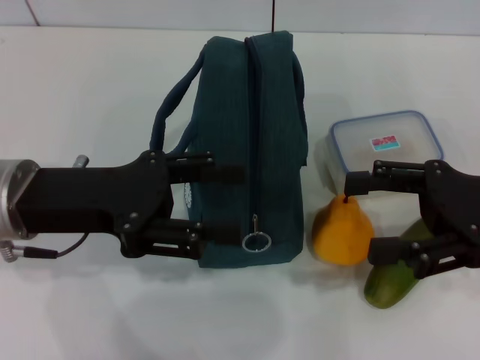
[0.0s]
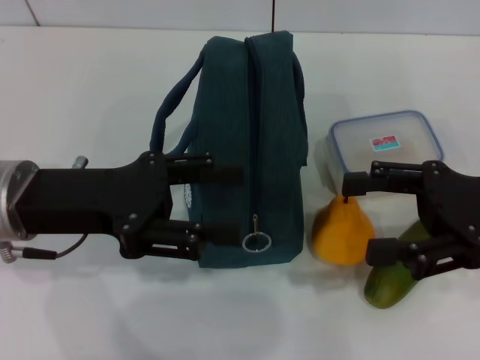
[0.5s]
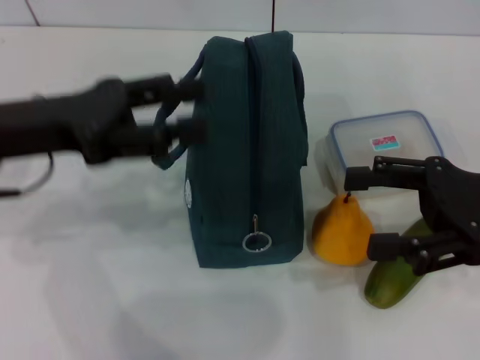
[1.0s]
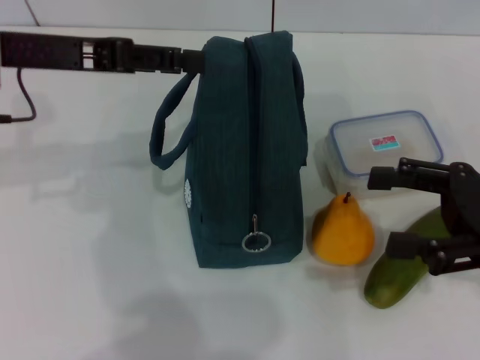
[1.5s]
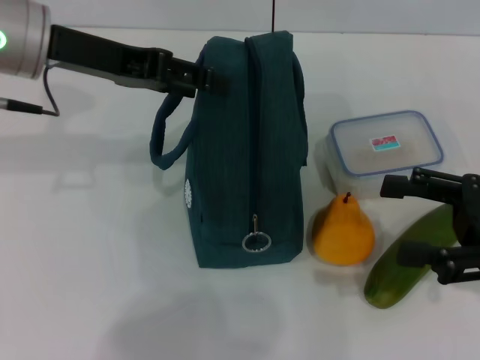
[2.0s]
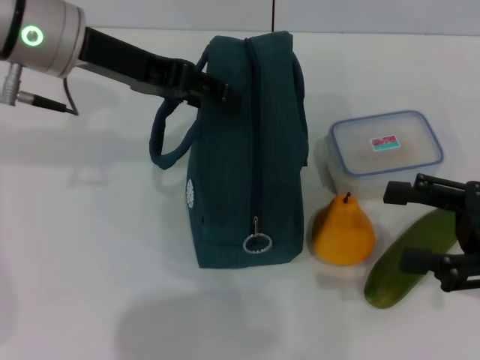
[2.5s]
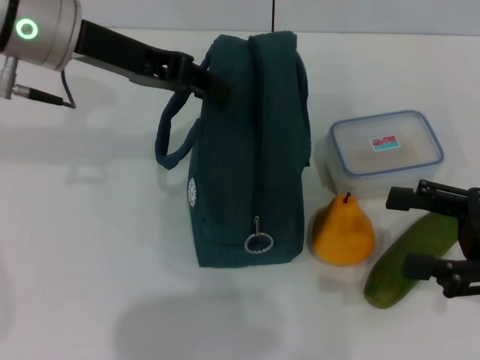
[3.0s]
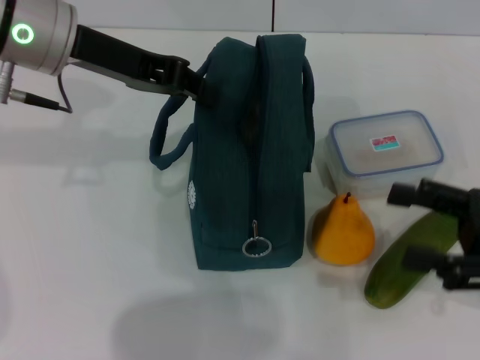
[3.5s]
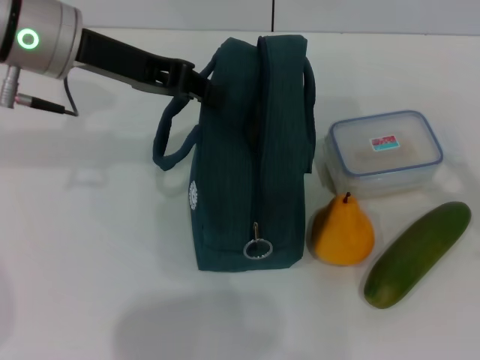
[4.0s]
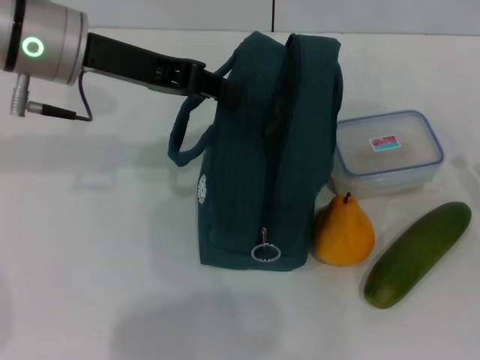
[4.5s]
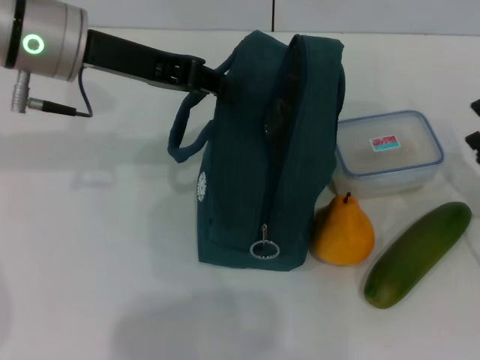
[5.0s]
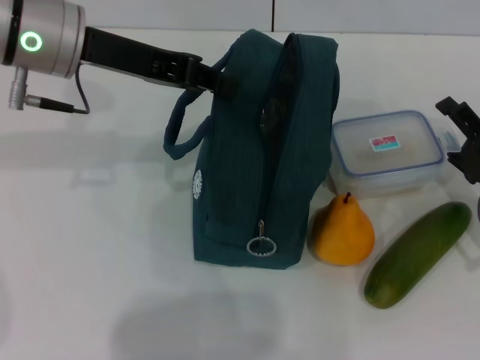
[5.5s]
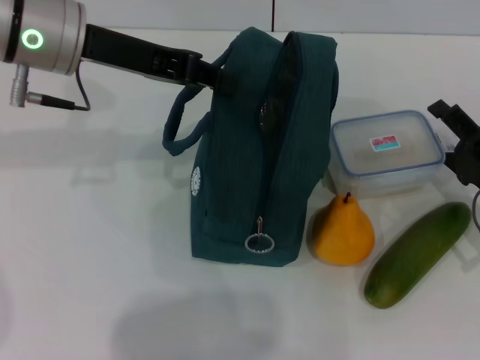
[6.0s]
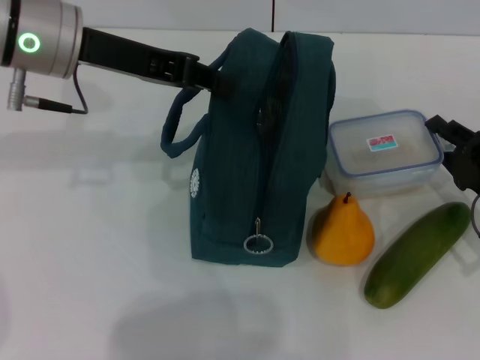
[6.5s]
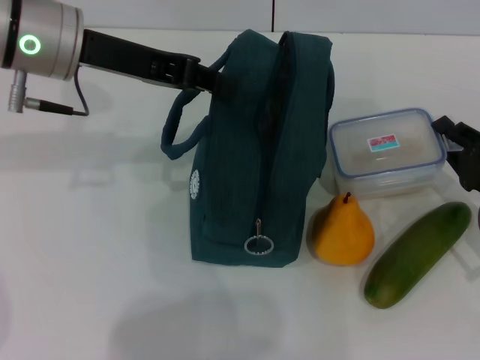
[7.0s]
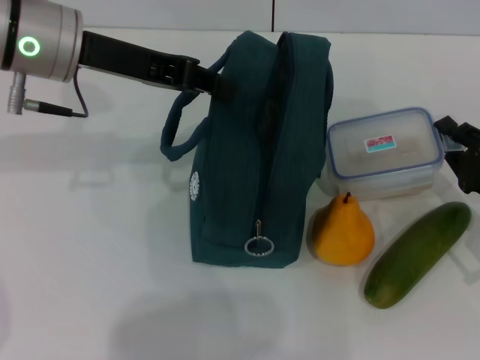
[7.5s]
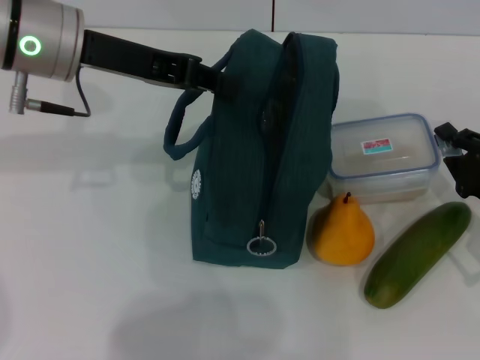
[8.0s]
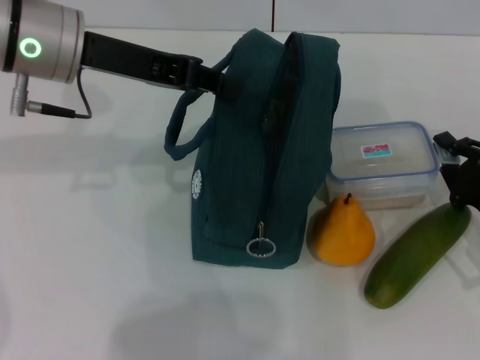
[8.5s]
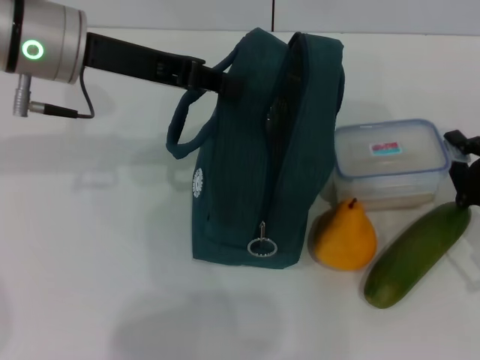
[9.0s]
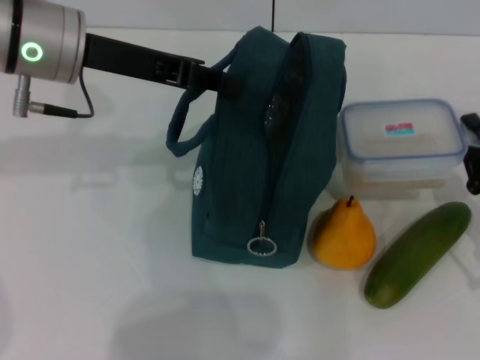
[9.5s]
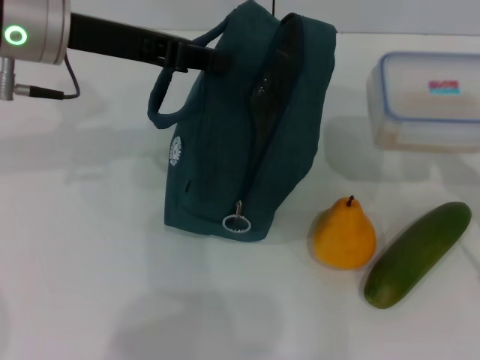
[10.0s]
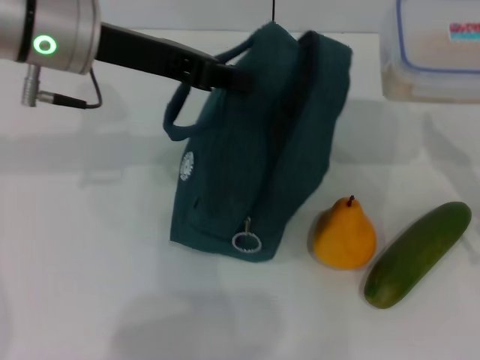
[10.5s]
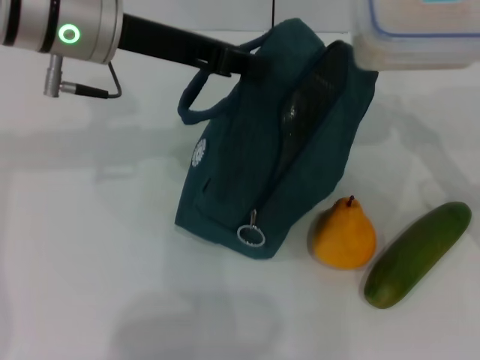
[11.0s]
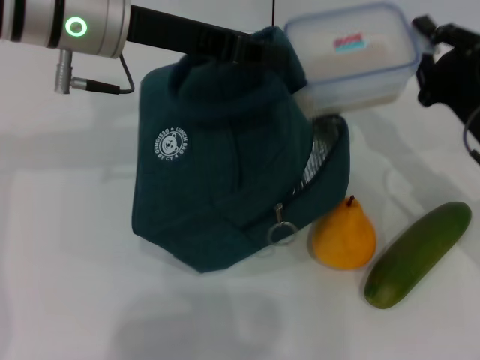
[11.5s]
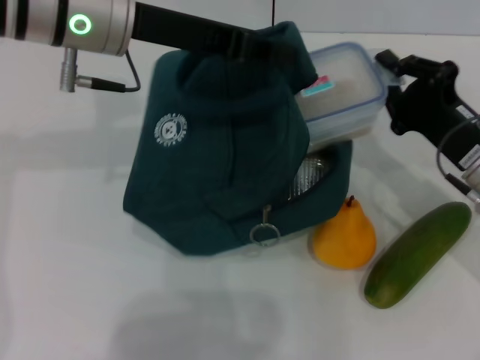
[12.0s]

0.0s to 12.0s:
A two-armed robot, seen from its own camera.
Step, 0.0s to 3.0s: Hold the lunch bag with your left hand.
Step, 3.5s to 7.0s: Pick up the lunch box with your right hand.
0.0s to 2.0s: The left gripper goes some 15 cm forward and upward.
2.0s to 4.0s: The right gripper ends up some 5 cm from where it was. The left gripper closes up.
4.0s to 6.0s: The right gripper heads forward, downward and to the left, covering some 10 cm.
6.0s to 8.0s: The right gripper closes up.
10.0s to 12.0s: The right gripper shifts approximately 10 cm to the left and forward.

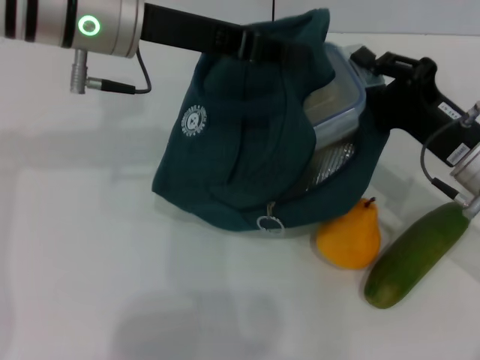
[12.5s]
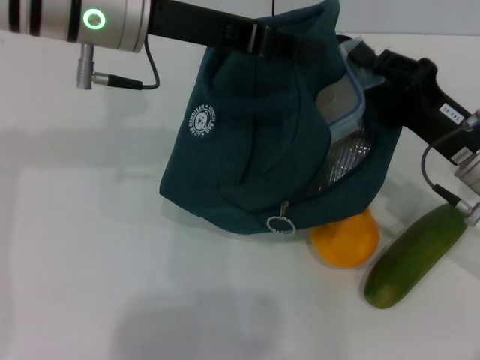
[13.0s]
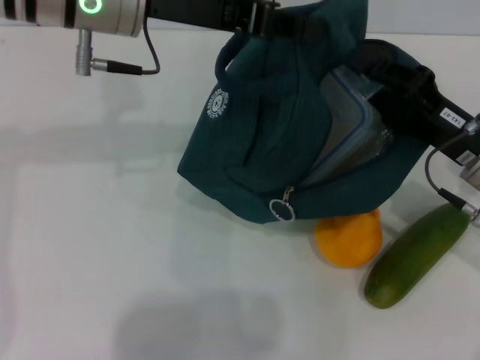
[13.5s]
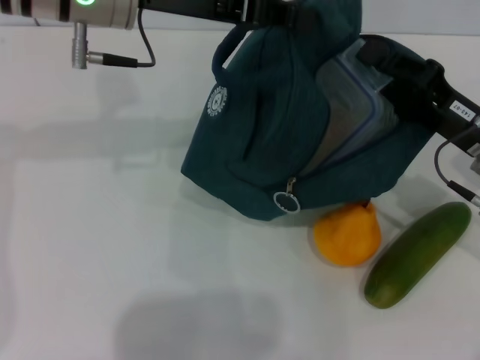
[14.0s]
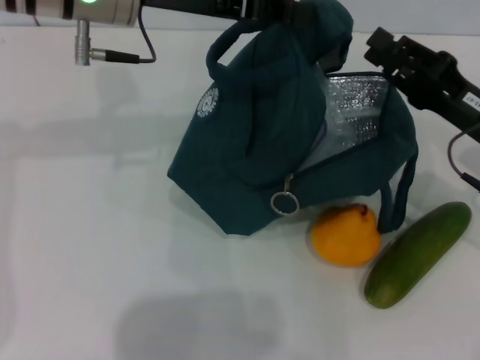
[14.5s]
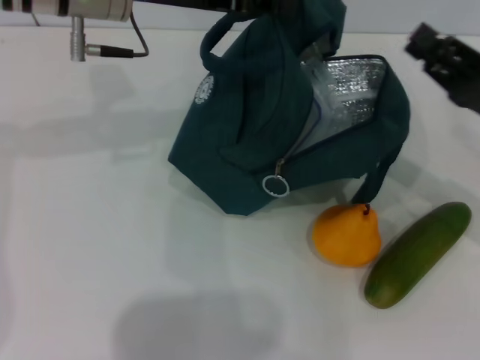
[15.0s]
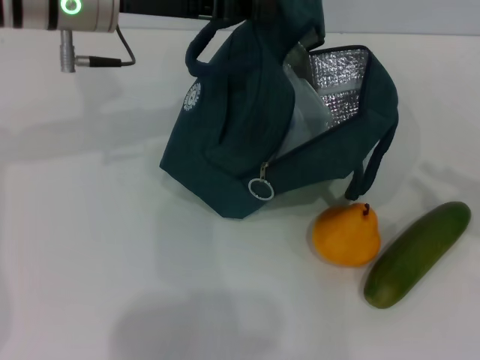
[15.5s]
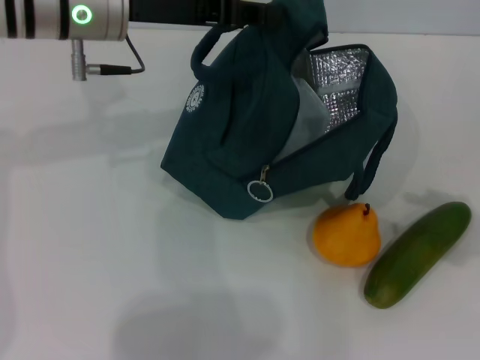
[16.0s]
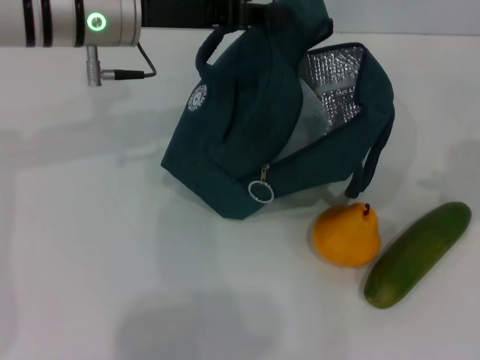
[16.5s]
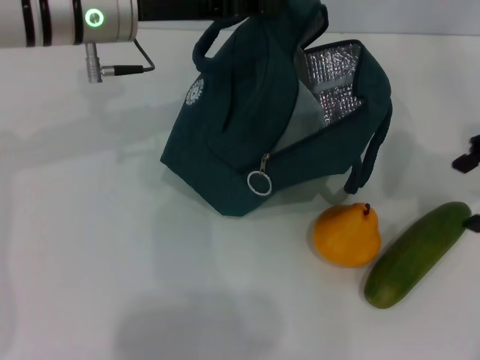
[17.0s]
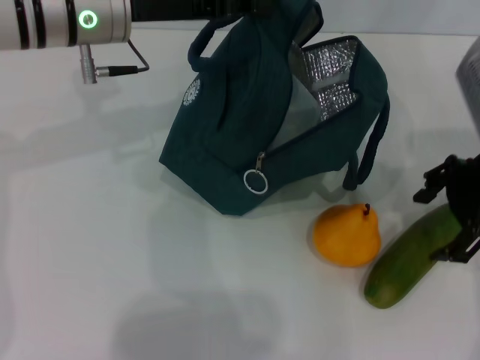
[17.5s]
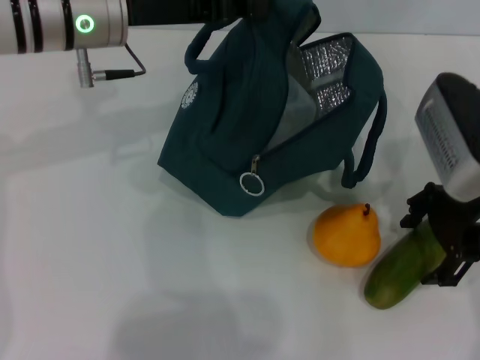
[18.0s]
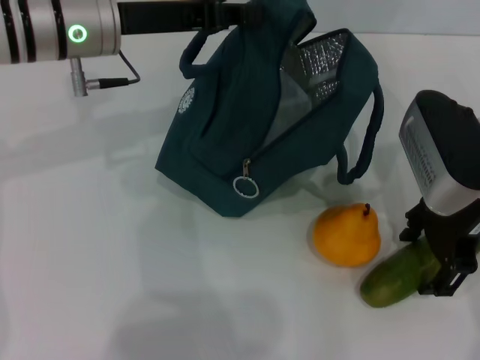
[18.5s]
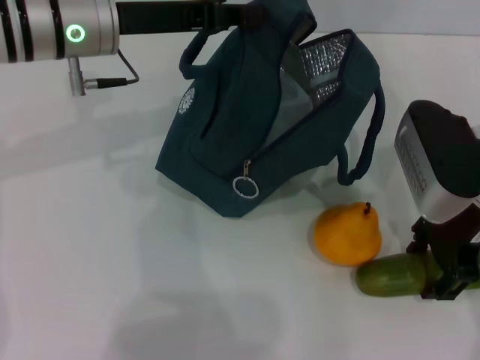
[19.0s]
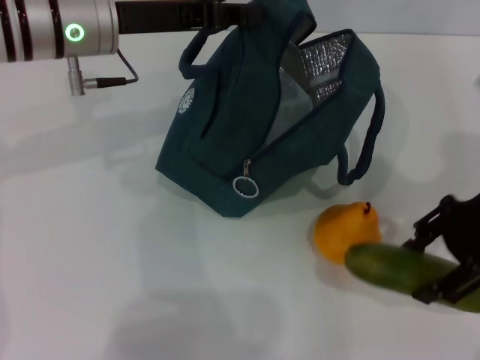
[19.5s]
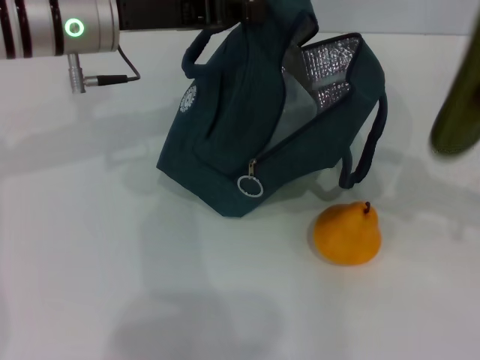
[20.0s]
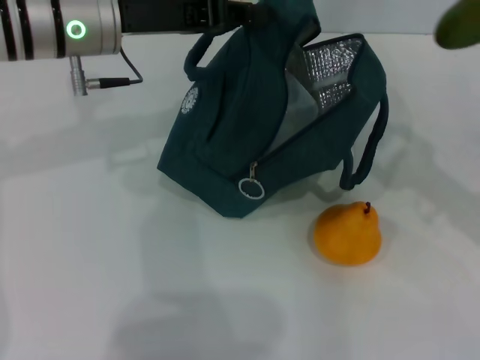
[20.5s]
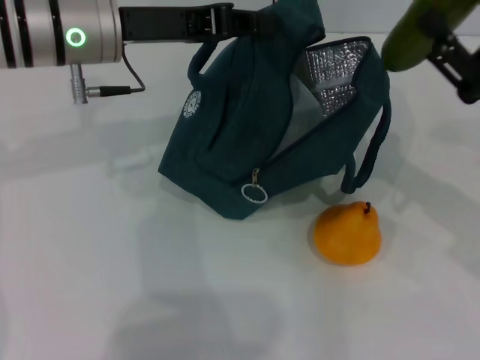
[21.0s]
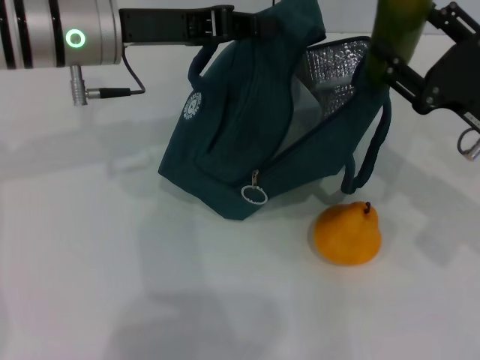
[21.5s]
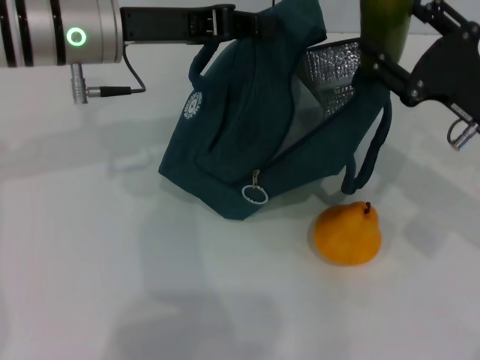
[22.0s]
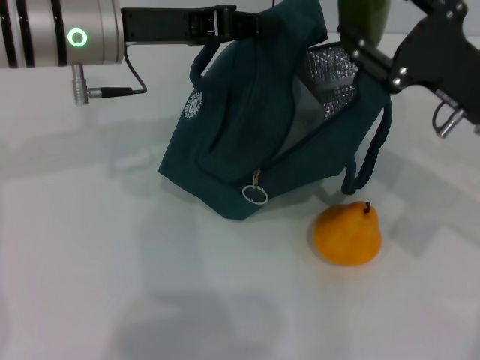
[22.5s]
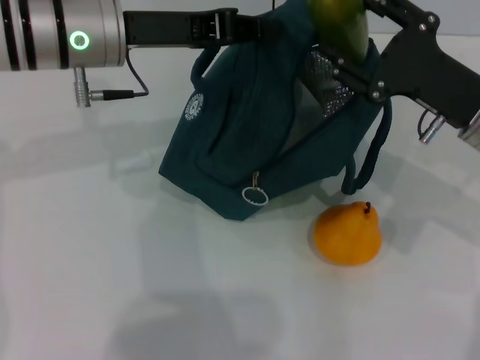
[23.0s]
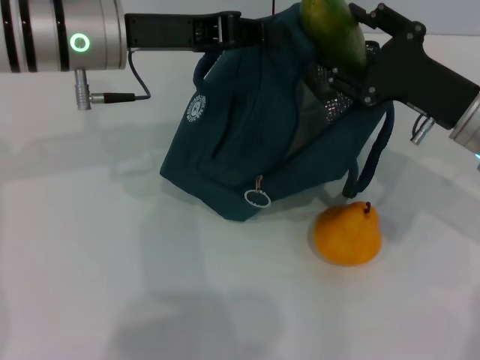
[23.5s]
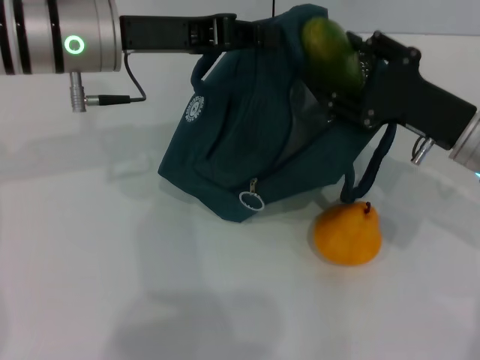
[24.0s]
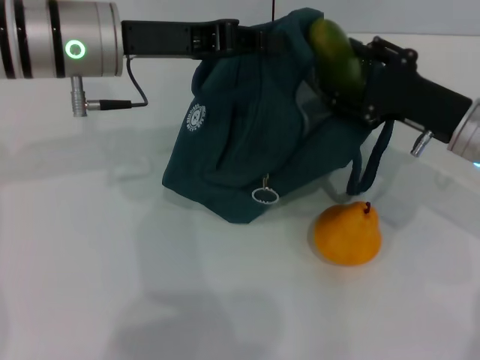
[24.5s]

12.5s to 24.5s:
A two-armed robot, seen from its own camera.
Step, 15.0s to 19.0s: Pick up the cucumber with your right hand.
14.5s to 16.5s: The right gripper goes about 15 cm upward and to the right, and opens its fingers.
16.5s to 18.5s: The right gripper shifts approximately 15 cm to the left and downward.
18.5s to 20.5s: The right gripper travels to the right and backward by about 10 cm.
20.5s to 22.5s: The right gripper heads to the left and forward, covering approximately 10 cm.

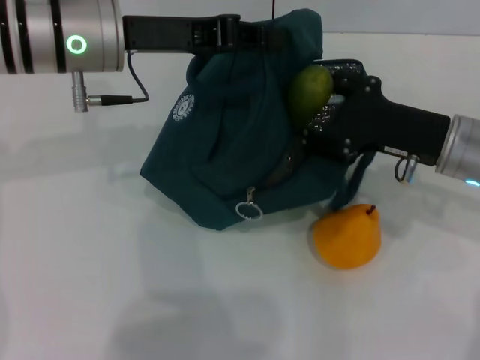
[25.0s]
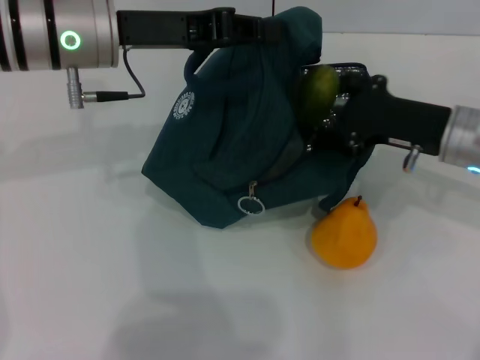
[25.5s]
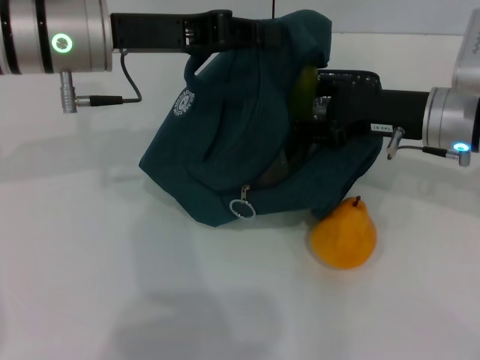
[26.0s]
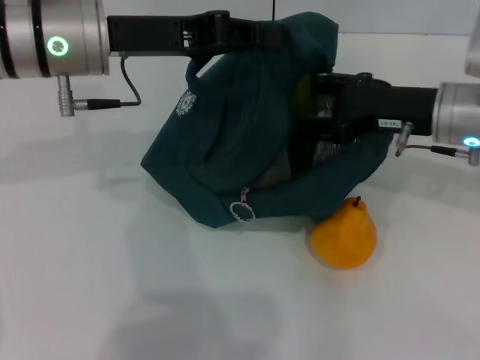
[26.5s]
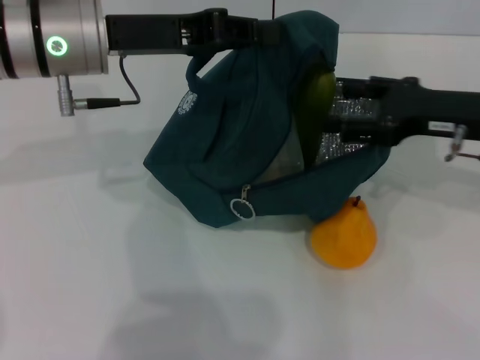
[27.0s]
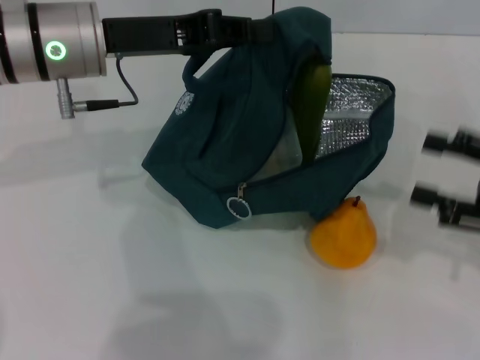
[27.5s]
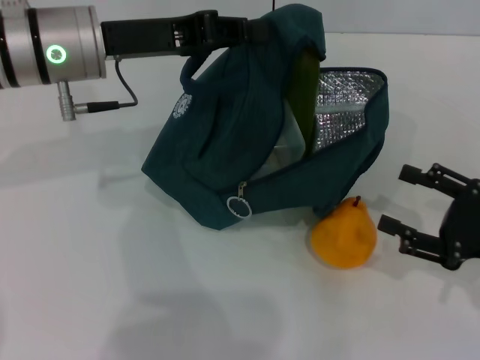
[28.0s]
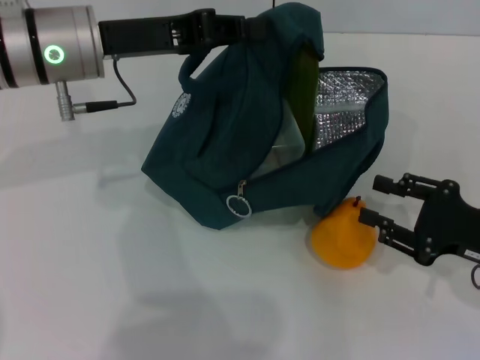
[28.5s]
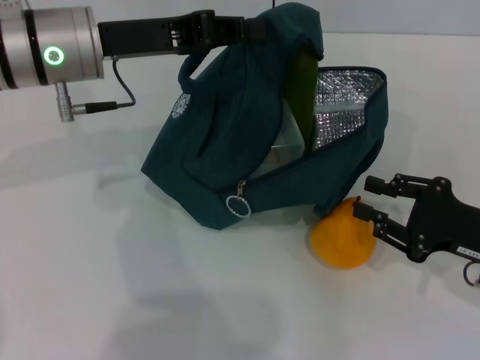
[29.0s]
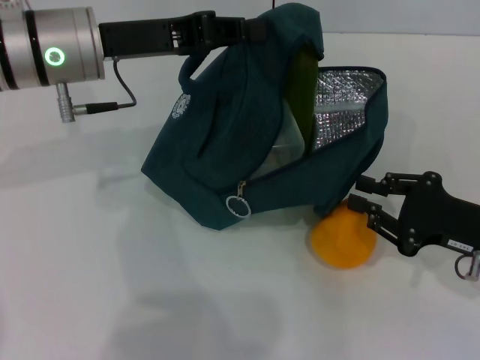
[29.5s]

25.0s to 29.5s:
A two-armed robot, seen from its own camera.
Step, 25.0s to 27.0s: Put the cucumber into the lunch bag with your right hand.
25.0s to 27.0s: The right gripper moves about 5 cm.
27.0s to 29.5s: The right gripper shifts about 15 cm downward and backward, and closes its fingers.
